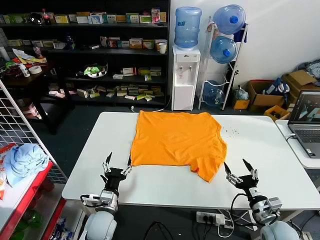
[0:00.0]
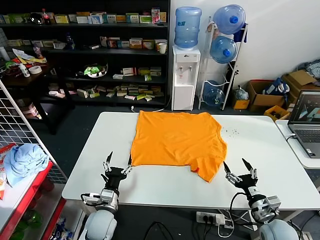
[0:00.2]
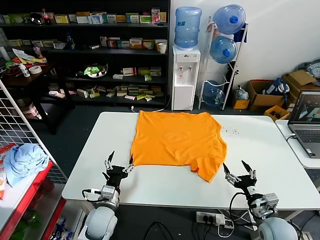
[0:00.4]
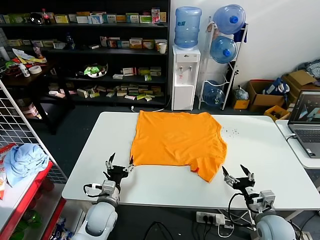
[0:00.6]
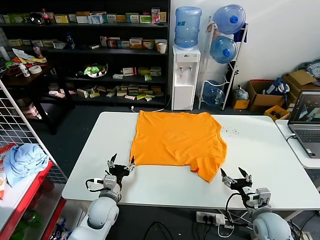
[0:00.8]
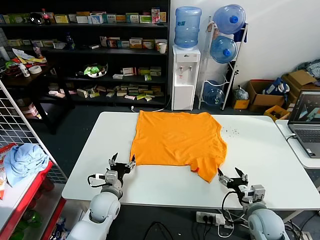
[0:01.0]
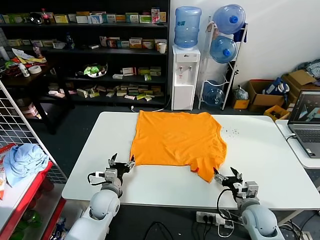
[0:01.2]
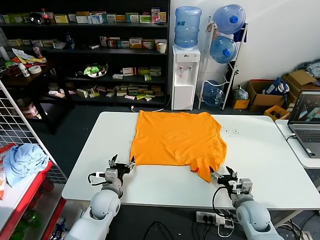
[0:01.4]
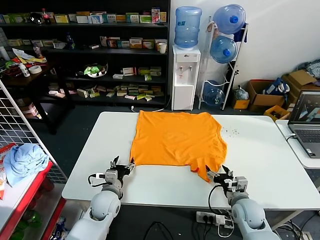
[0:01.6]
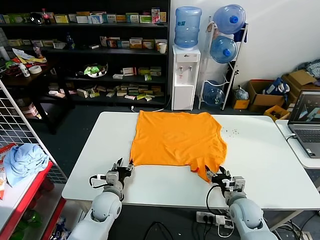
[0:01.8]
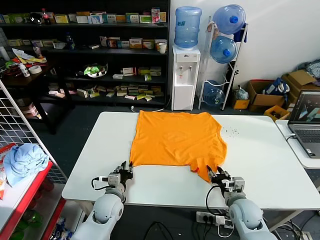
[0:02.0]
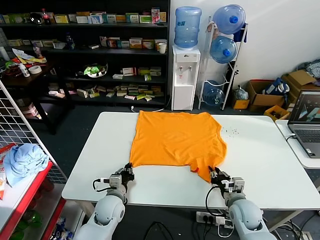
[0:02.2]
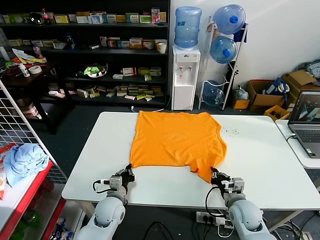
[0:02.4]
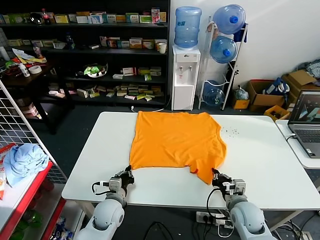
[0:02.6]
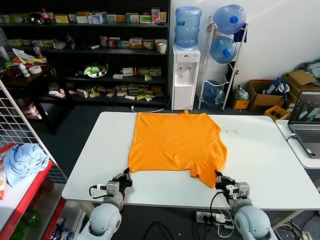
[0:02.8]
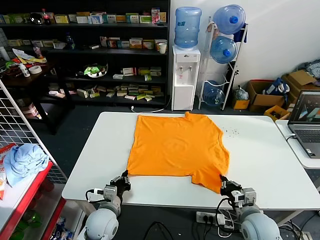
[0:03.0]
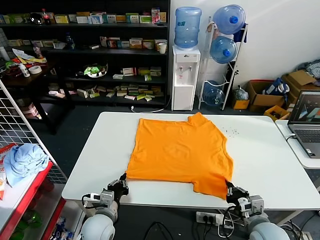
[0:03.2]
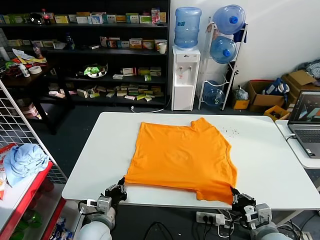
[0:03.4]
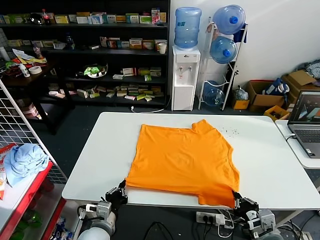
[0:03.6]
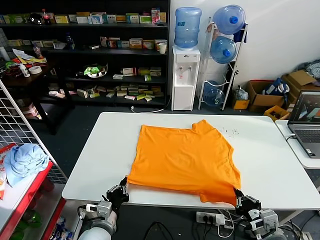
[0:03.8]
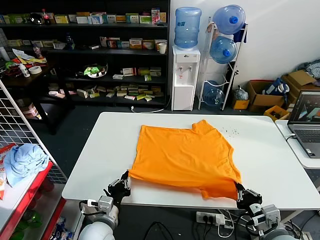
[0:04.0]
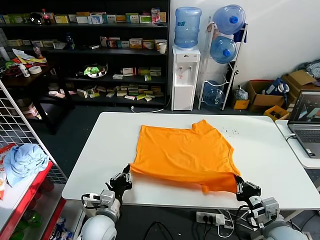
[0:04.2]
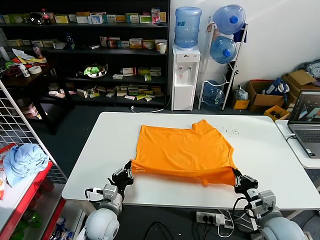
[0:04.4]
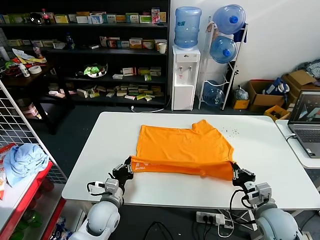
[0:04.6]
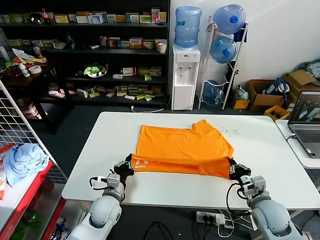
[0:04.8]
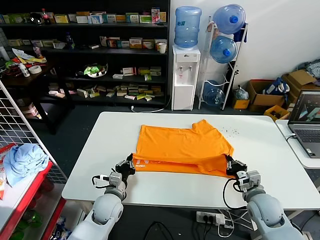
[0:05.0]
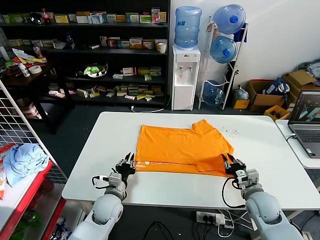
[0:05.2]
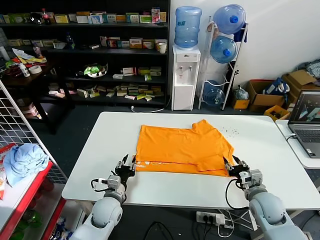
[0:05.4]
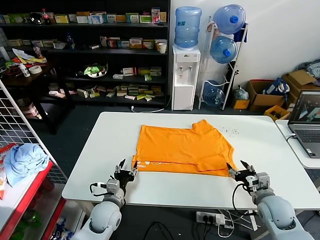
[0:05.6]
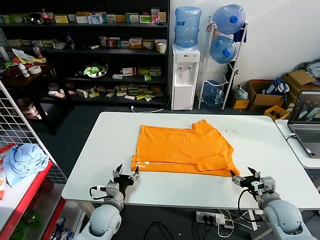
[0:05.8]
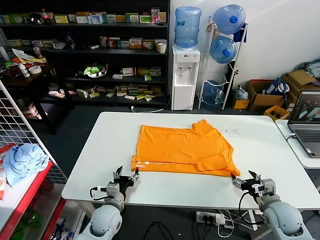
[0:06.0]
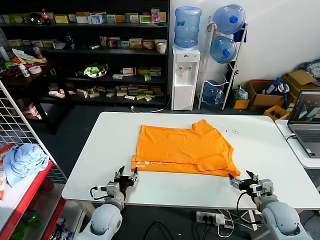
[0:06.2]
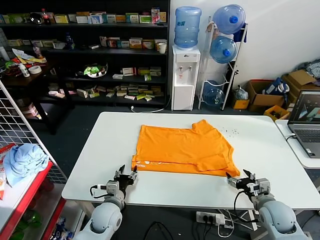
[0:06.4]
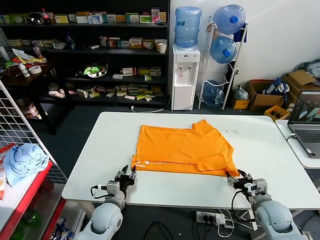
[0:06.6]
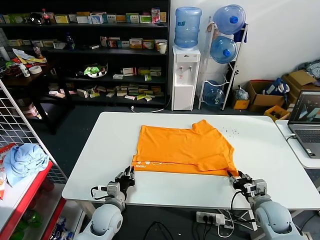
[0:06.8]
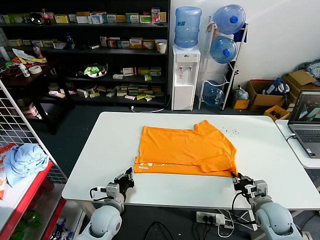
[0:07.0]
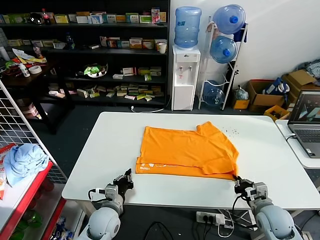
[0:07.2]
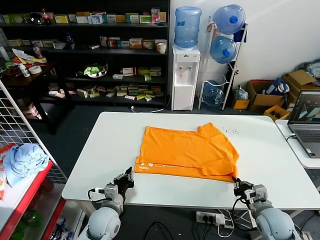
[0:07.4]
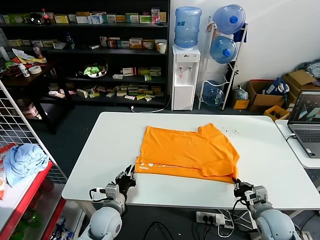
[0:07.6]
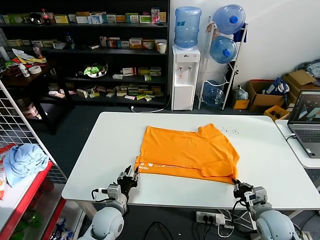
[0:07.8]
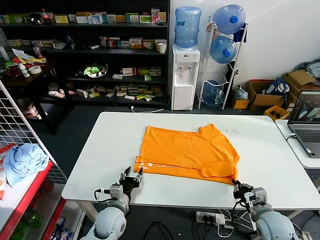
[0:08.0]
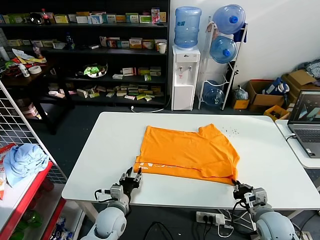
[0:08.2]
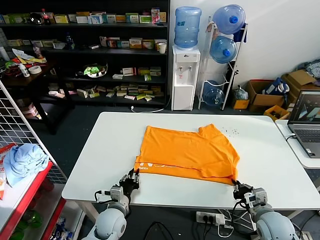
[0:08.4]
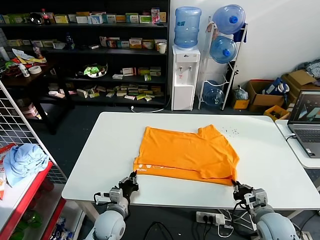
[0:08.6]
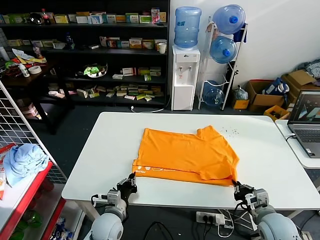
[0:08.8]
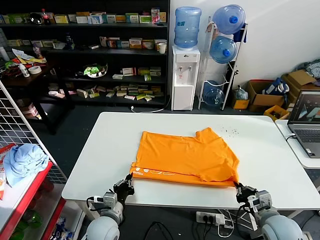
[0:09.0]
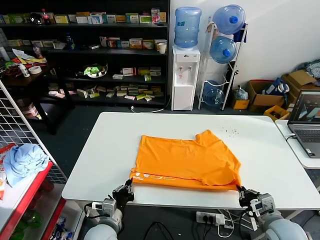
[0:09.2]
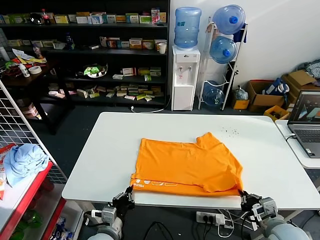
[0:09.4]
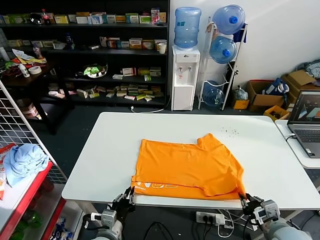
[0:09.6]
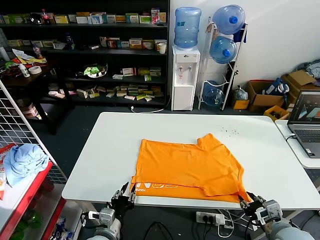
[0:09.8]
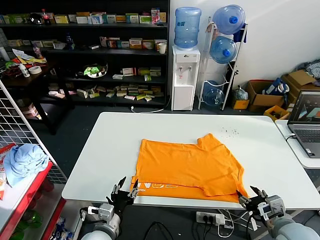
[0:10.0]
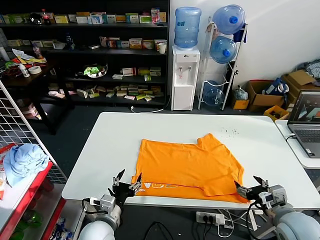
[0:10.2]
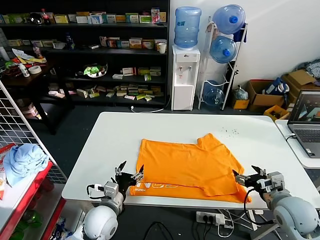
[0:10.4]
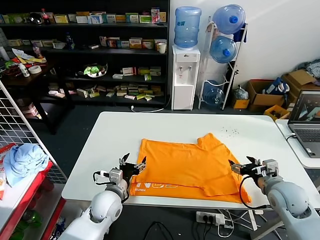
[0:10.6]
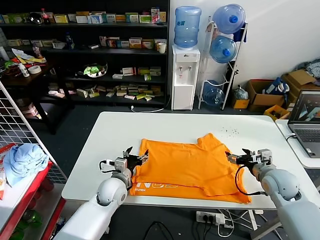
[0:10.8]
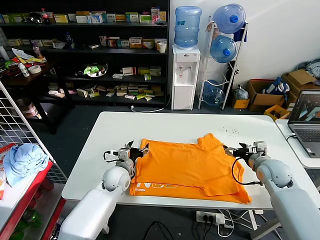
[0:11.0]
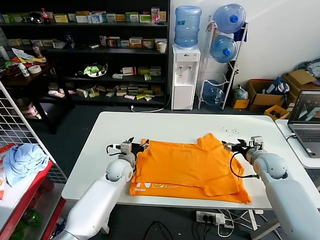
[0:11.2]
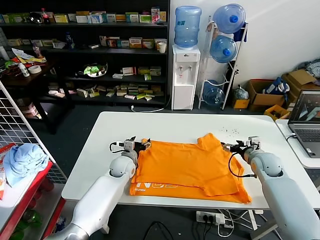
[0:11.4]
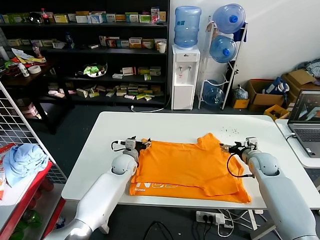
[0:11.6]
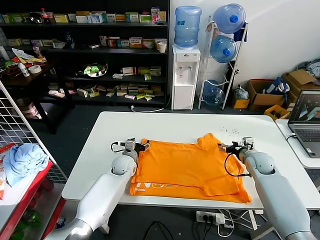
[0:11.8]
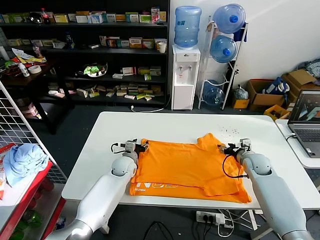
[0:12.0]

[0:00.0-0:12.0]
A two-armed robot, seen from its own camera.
Task of the whole recording: fold and organize the clothes.
Step, 0:00.0 to 0:02.6: use both grippers simultaneously to clamp the lower edge of the clothing fabric.
Step, 0:02.8 to 0:05.4: use both grippers to drag the lower edge of the fabric forward and fold it over the upper edge.
Step, 0:05.6 to 0:10.0: Drag the clothes downward with both gripper.
0:01.6 to 0:03.0: Both grippers travel together backward, some 5 cm. The right gripper closes up; the left gripper closes its fingers.
0:04.4 to 0:06.0: The right gripper shifts by about 10 cm, and opens up. The left gripper ends up about 5 cm from where it was, and opens.
0:06.0 to 0:07.6: The right gripper closes. Meanwhile the left gripper closes.
0:07.6 to 0:09.0: The left gripper opens, then closes once more.
0:09.0 to 0:10.4: The left gripper opens, while the right gripper is displaced upward by some 5 cm, and opens its fingers.
0:10.4 to 0:12.0: The left gripper moves forward, roughly 25 cm; the right gripper shifts roughly 20 cm forward and downward.

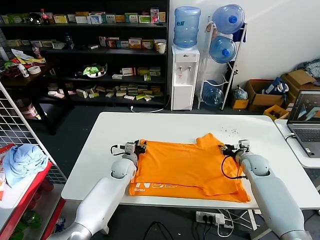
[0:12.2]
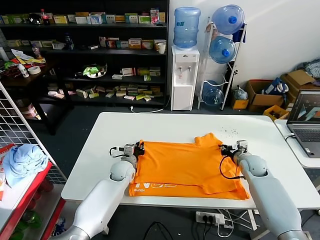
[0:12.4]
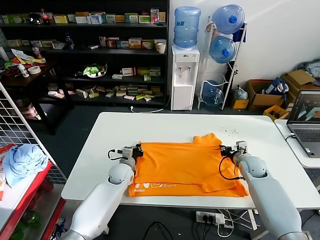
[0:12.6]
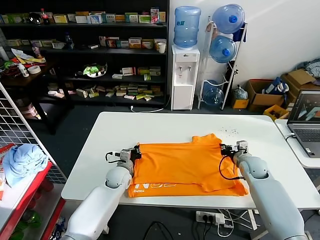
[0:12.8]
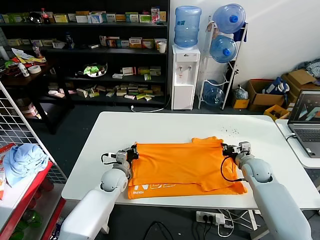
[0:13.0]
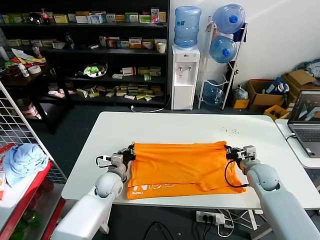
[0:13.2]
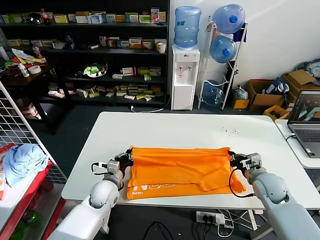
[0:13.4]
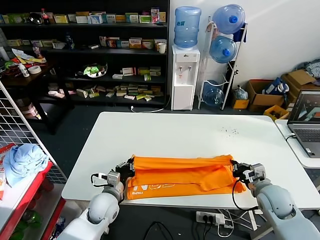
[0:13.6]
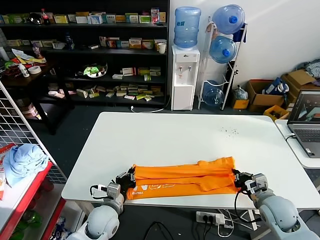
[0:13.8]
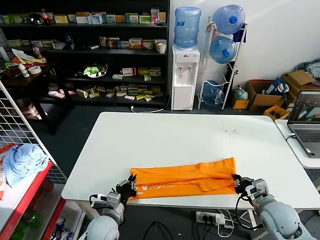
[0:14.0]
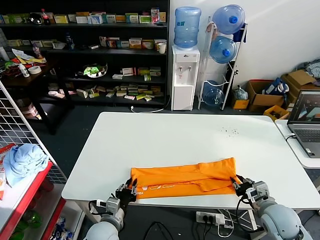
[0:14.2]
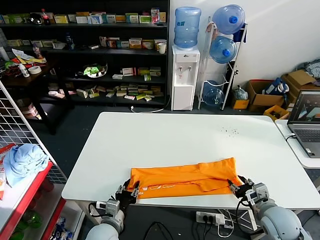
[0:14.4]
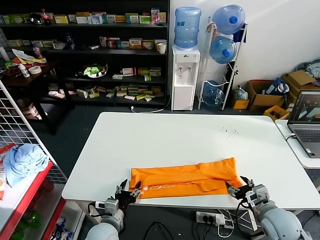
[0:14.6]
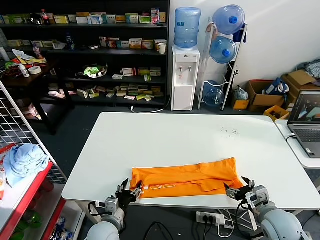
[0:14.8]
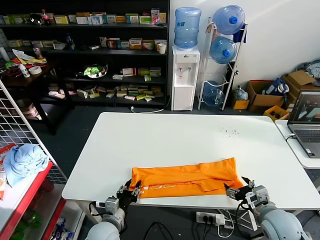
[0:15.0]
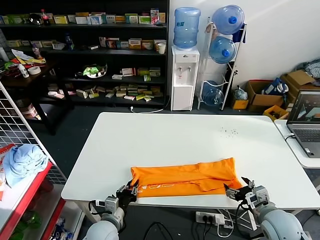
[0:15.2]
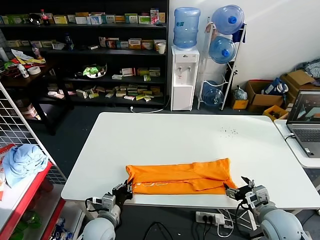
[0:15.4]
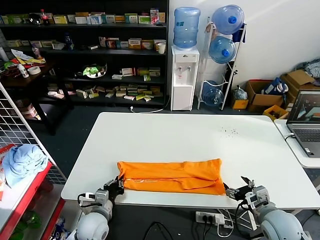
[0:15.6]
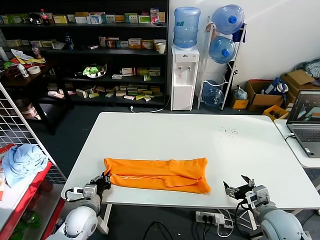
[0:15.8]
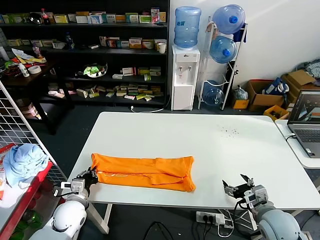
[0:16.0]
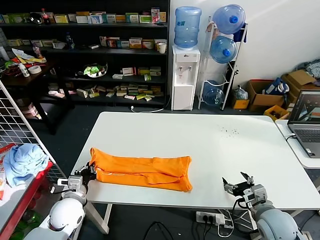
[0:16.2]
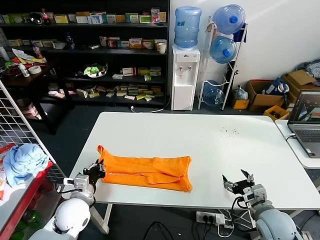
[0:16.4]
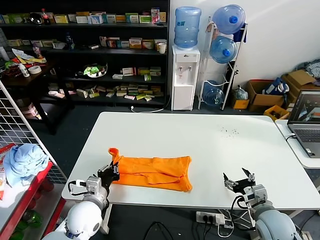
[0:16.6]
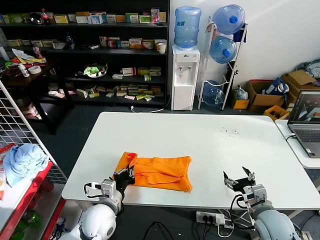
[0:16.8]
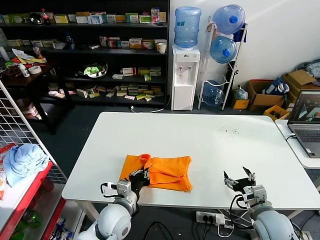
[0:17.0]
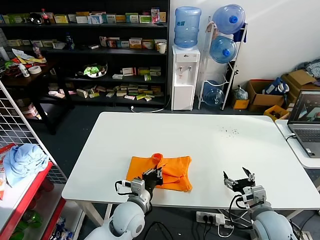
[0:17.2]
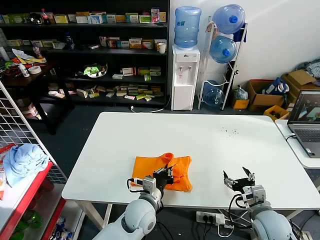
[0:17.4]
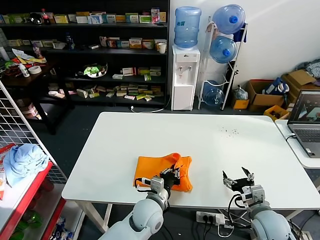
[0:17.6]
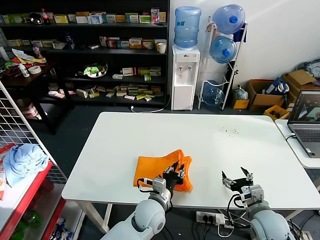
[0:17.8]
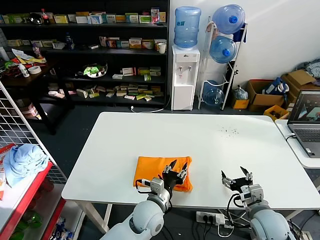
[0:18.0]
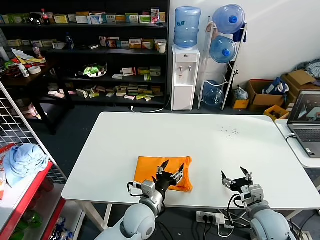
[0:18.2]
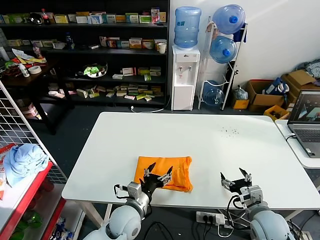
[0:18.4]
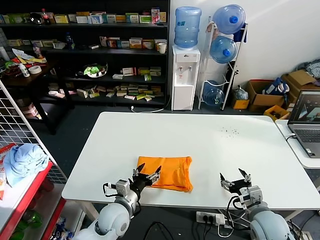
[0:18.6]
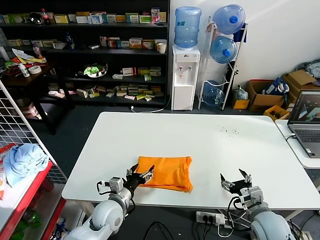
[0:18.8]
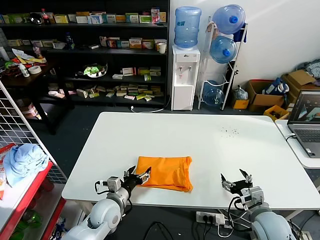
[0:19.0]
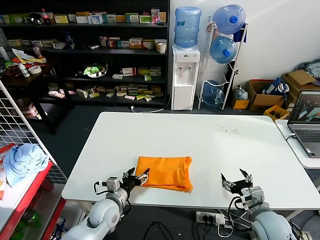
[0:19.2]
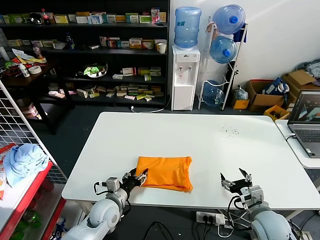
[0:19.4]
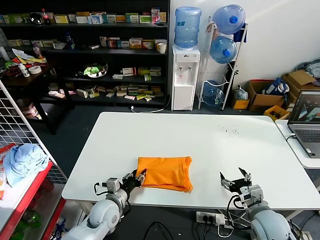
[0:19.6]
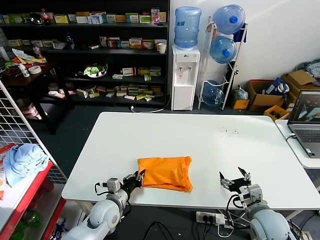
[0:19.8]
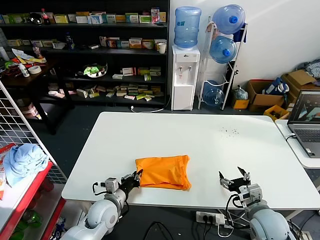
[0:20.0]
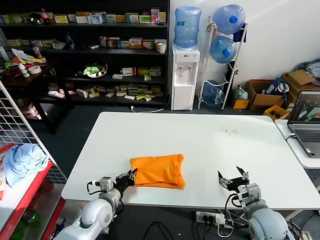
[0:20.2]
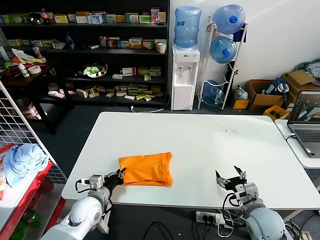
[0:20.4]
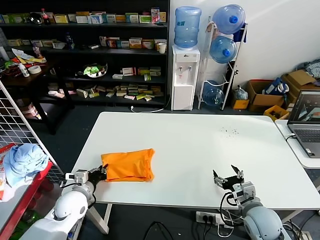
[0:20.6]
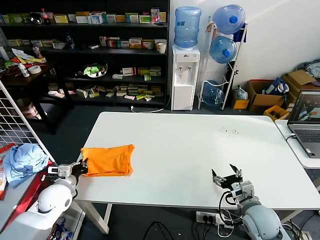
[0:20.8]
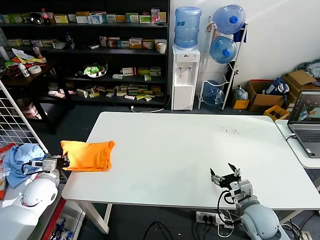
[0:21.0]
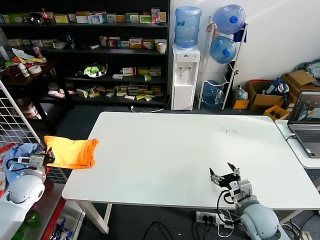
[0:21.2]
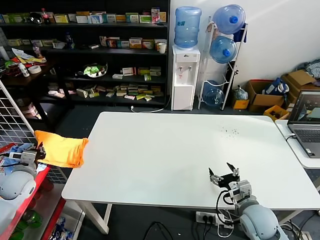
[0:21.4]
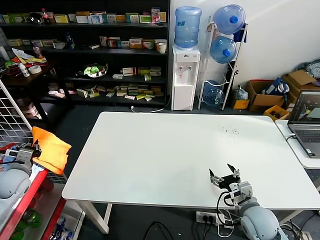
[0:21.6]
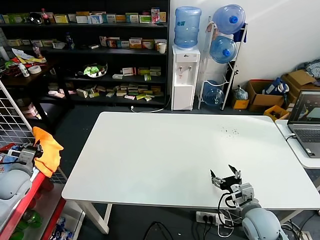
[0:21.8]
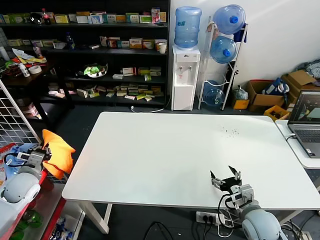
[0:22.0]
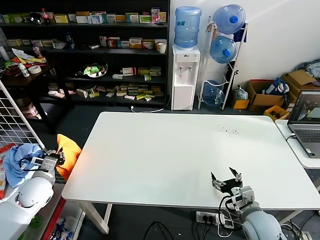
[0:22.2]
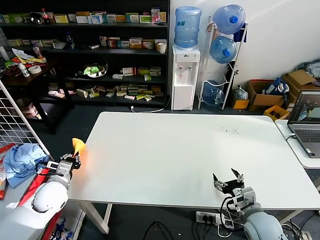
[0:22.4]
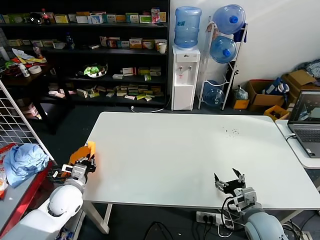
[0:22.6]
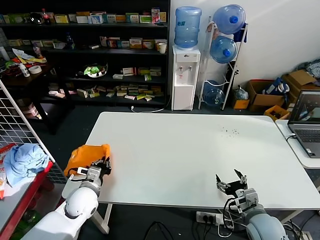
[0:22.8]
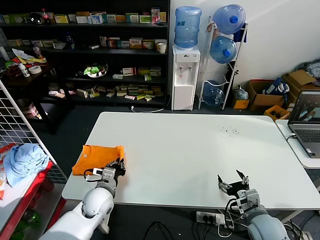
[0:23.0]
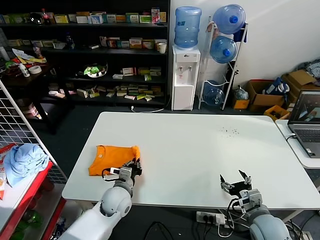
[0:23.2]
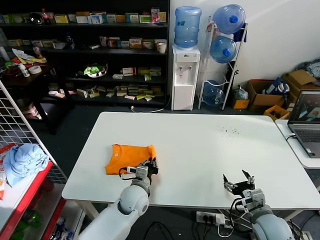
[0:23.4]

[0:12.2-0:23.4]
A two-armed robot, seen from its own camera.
Task of the whole recording: fold and organize the clothes.
Step, 0:12.8 to 0:14.6: use both grippers to drag the upper edge of the fabric backward and fold it over the lower edge.
Step, 0:14.8 to 0:15.4: use the left gripper to clamp the left edge of the fabric.
Step, 0:15.6 to 0:18.0: use the left gripper to drag the left edge of the fabric to the left and folds it over the right edge.
0:12.2 to 0:13.8: Both grippers travel together backward, some 20 cm. The right gripper closes up; the left gripper closes.
0:13.8 to 0:15.4: The right gripper opens its fingers; the left gripper opens and closes again.
0:15.4 to 0:17.0: The left gripper heads upward, covering approximately 5 cm, and reaches some 10 cm to the left, then returns.
0:17.0 to 0:18.6: The left gripper goes to the right and returns, roughly 10 cm each way, and opens.
0:18.6 to 0:20.2: The left gripper heads to the left, covering roughly 5 cm, and closes up.
0:20.2 to 0:21.8: The left gripper goes approximately 30 cm to the left and upward.
0:21.8 to 0:23.4: The left gripper heads to the right, covering approximately 40 cm.
